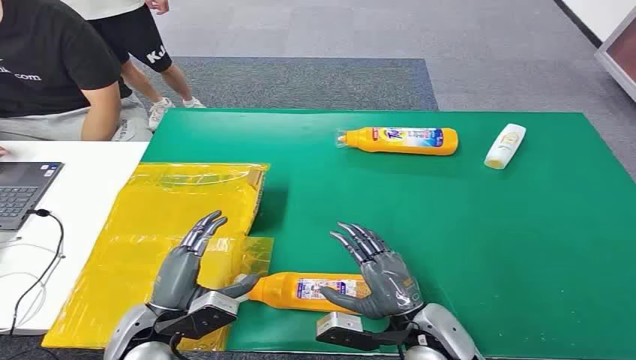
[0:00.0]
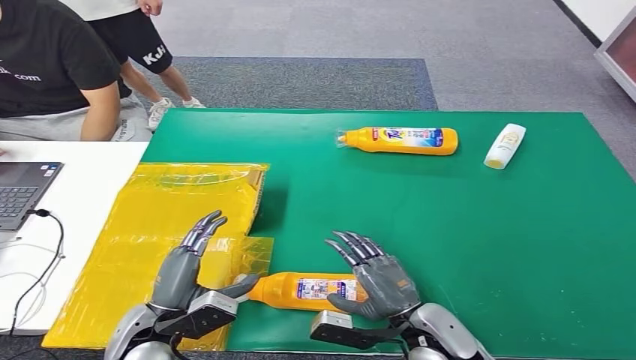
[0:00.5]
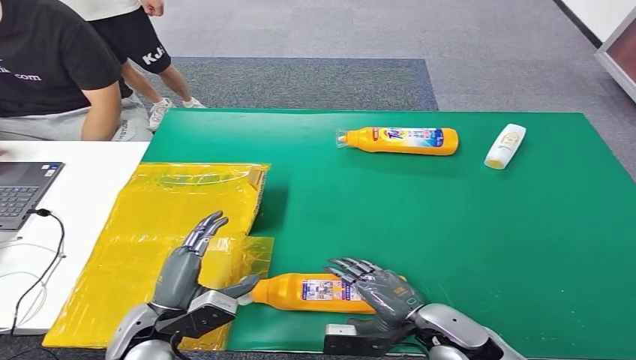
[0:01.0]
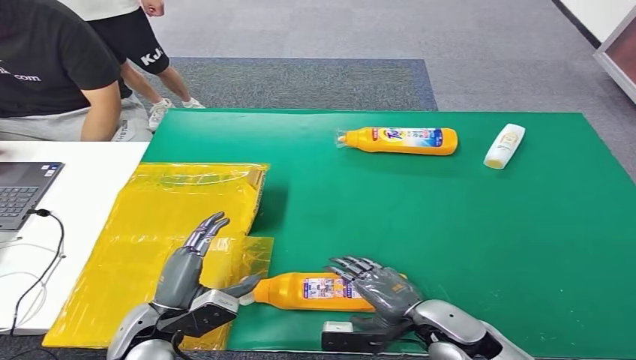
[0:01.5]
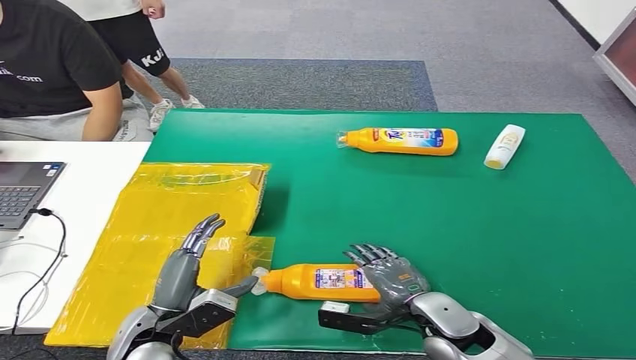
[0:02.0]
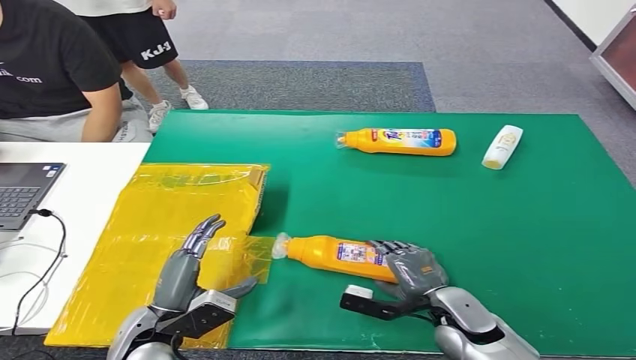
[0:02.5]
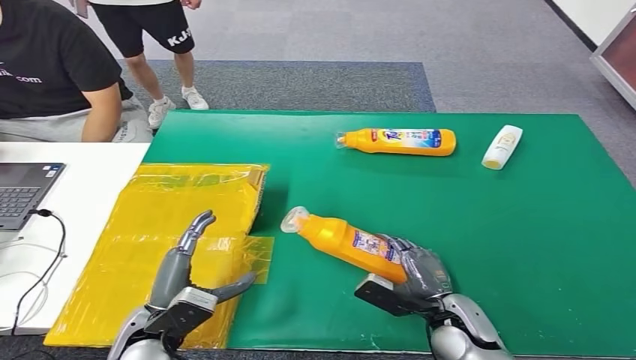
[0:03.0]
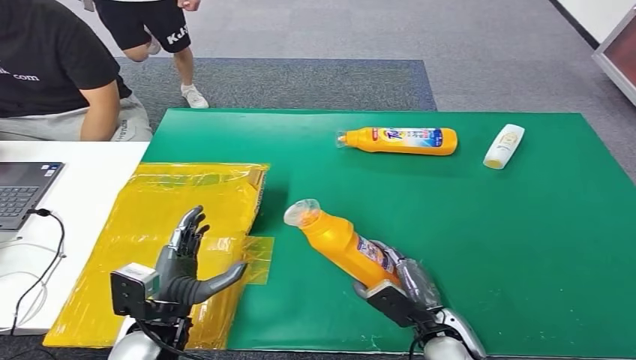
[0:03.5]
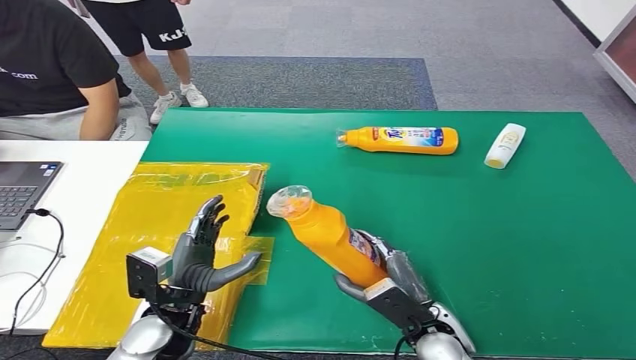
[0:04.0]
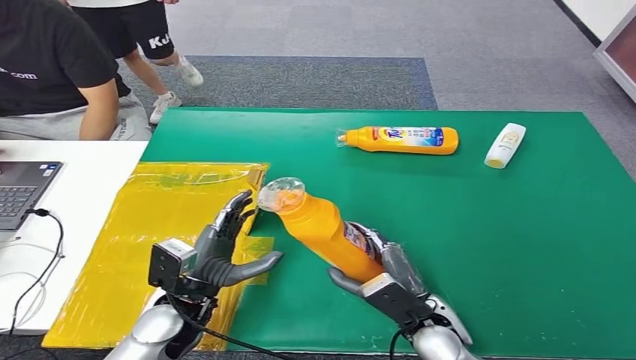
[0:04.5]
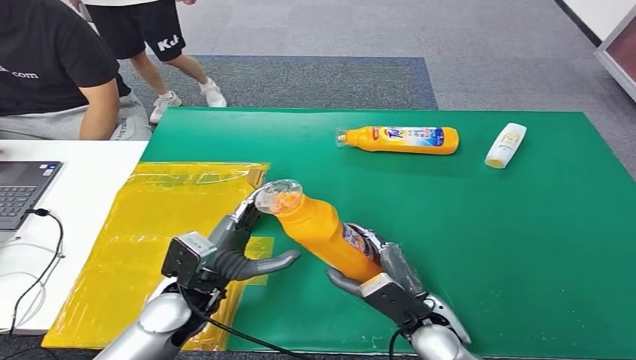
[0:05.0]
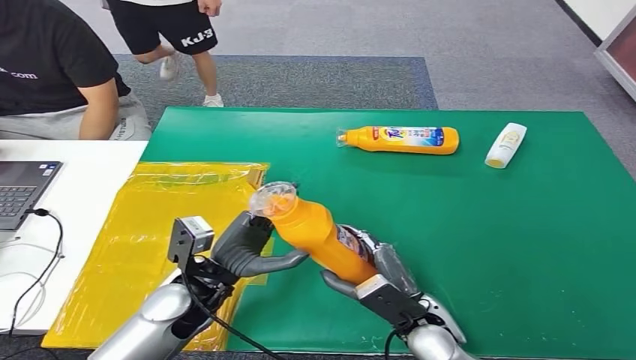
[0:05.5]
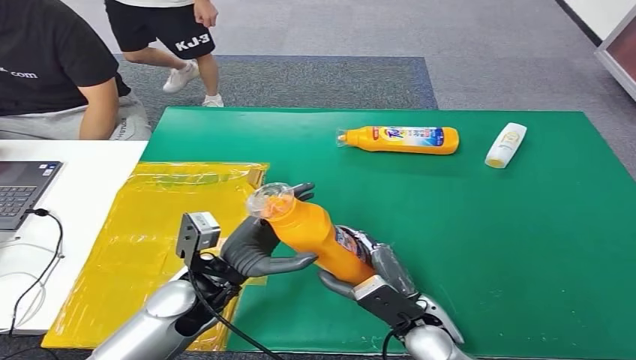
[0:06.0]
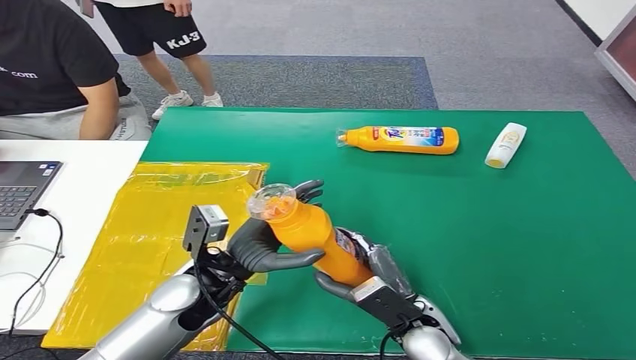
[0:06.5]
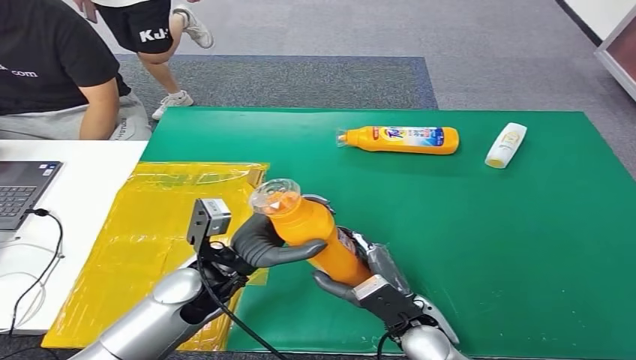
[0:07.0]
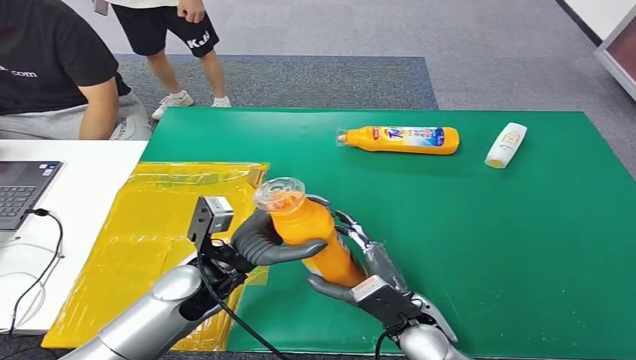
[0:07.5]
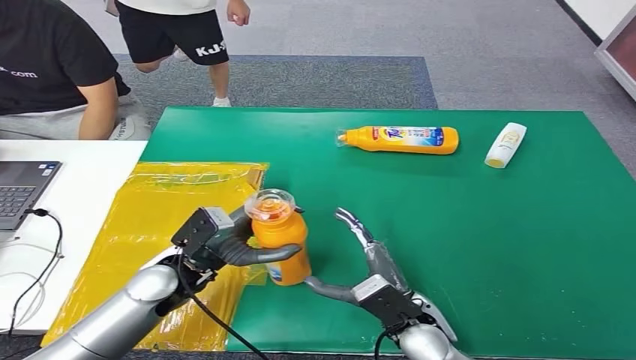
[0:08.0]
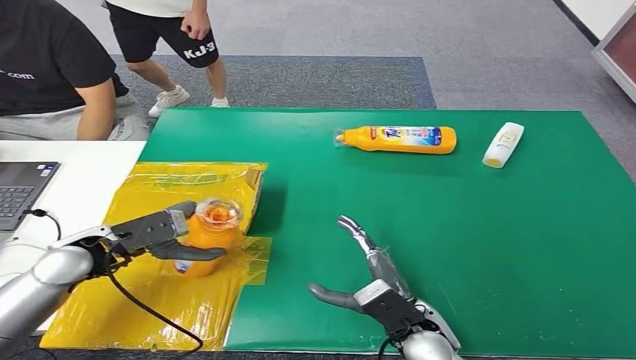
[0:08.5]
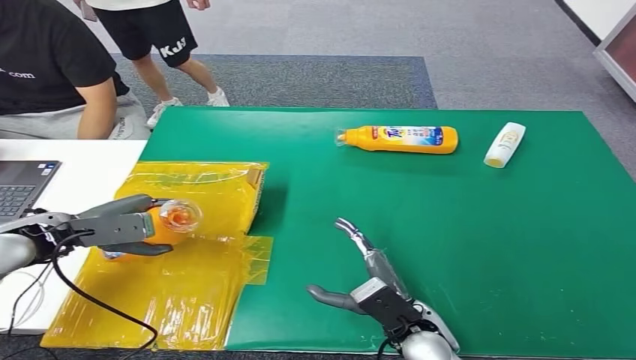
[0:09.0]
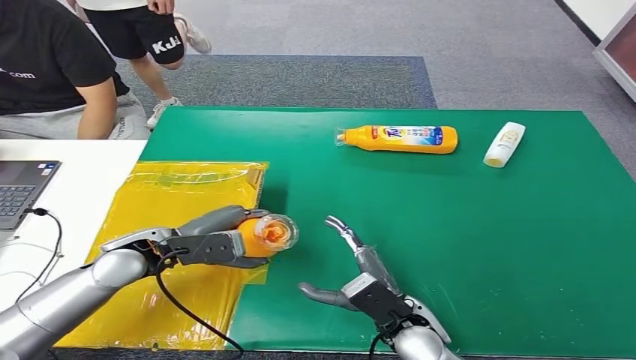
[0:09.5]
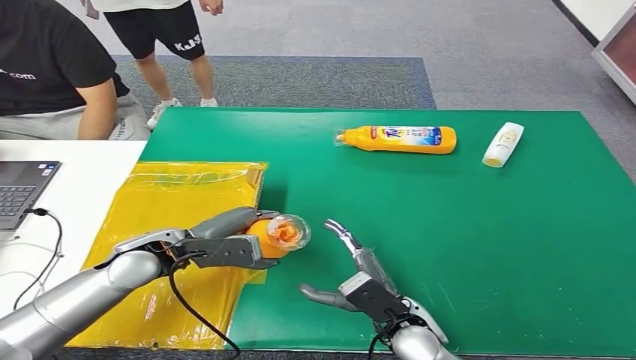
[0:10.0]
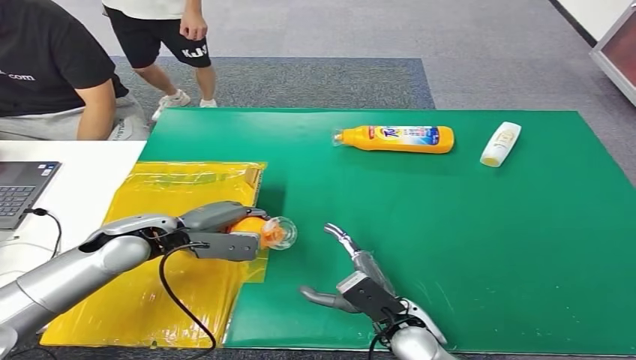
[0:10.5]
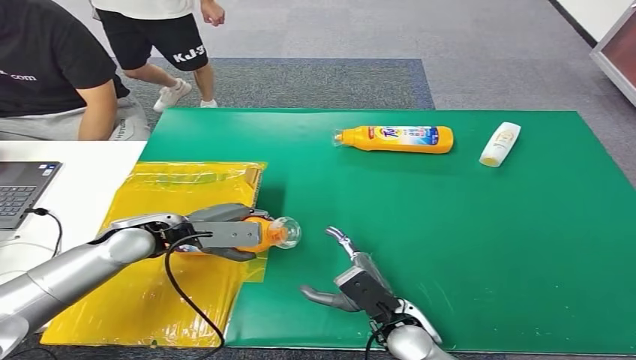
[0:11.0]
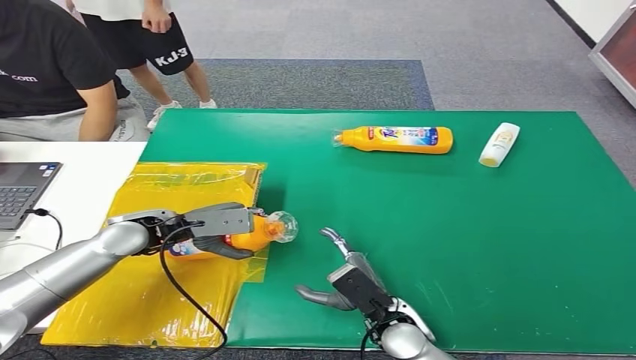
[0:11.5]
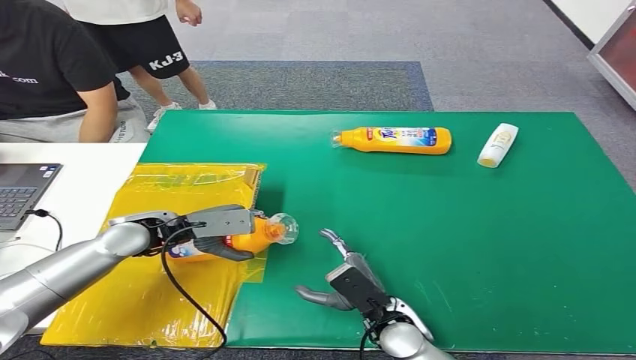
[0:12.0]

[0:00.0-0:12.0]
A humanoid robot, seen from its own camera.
Step, 0:00.0 to 0:03.5: Pick up the bottle from the table.
0:04.0 to 0:06.0: The left hand ends up some 10 cm from where it was.
0:06.0 to 0:08.0: The hands move only a little.
0:08.0 to 0:10.0: The left hand goes to the left and returns, some 20 cm each way.

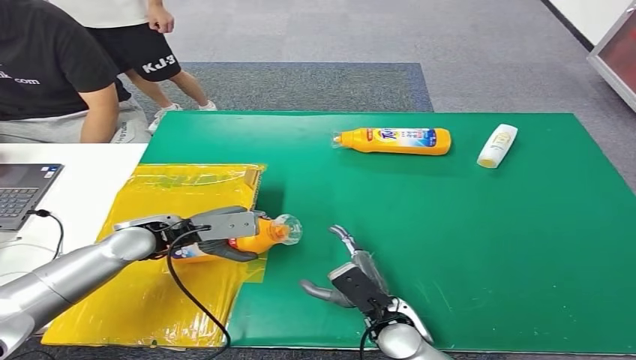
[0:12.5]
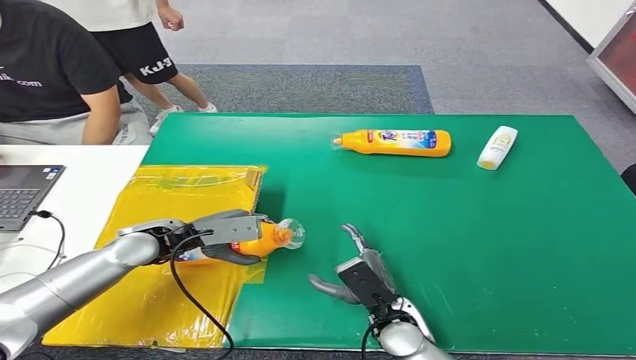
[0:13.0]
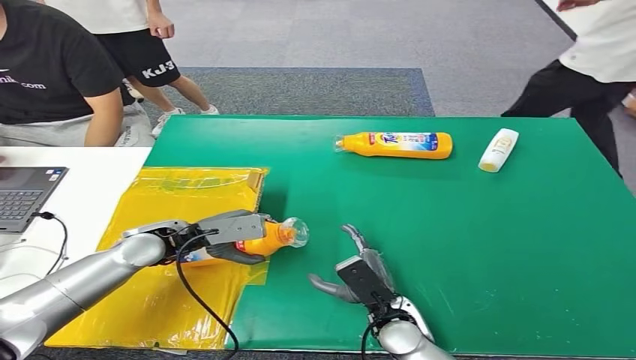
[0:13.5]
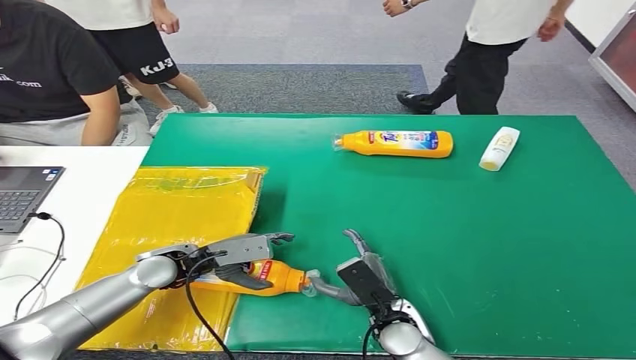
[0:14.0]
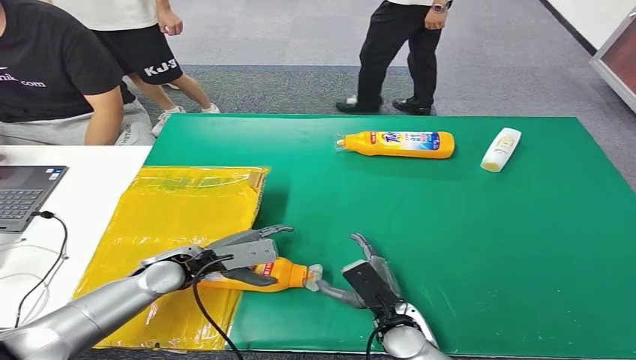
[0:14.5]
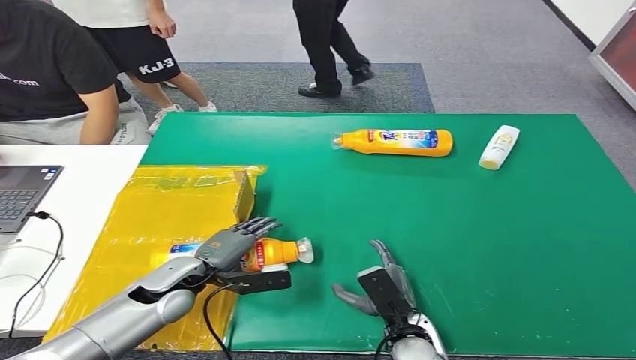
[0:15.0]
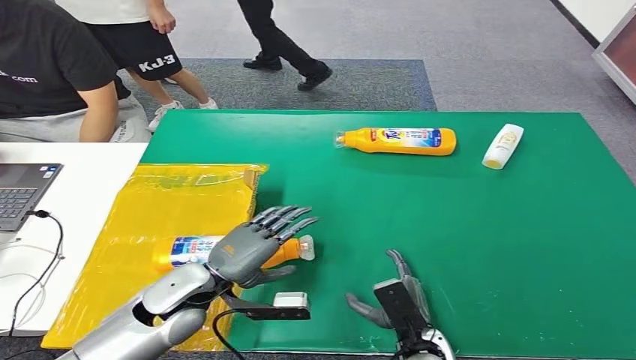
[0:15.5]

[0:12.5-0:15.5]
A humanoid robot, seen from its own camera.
Step, 0:12.5 to 0:15.5: Turn the bottle to the front side.
